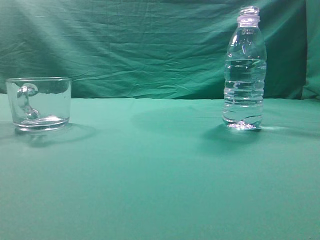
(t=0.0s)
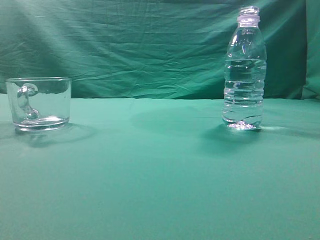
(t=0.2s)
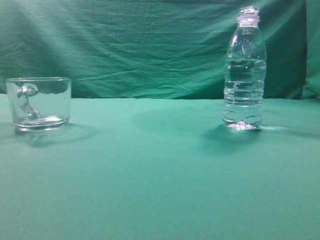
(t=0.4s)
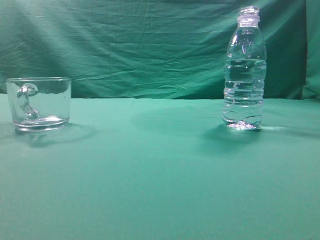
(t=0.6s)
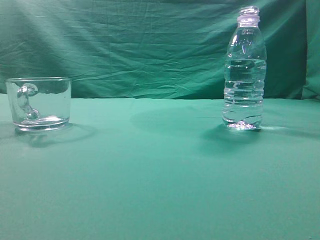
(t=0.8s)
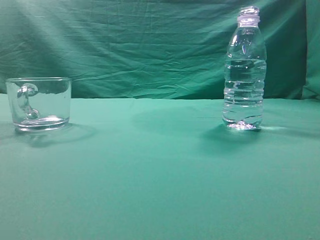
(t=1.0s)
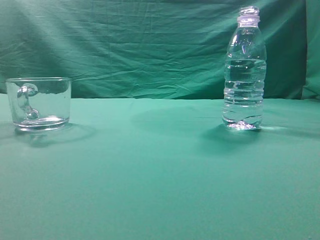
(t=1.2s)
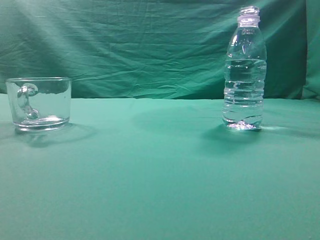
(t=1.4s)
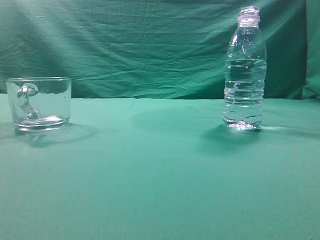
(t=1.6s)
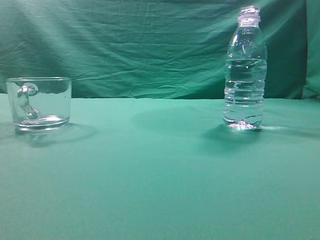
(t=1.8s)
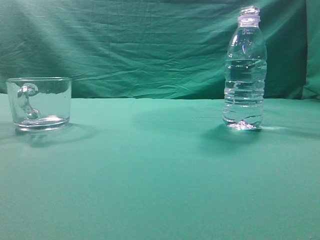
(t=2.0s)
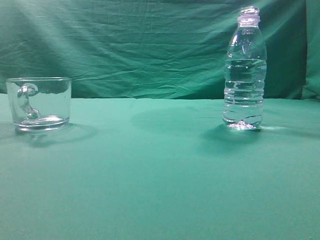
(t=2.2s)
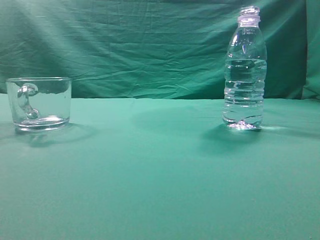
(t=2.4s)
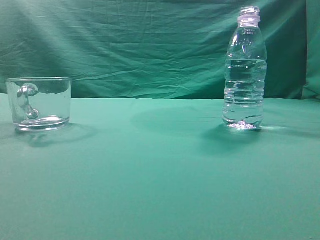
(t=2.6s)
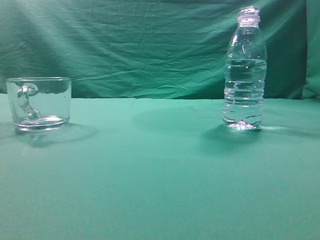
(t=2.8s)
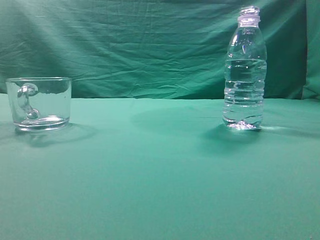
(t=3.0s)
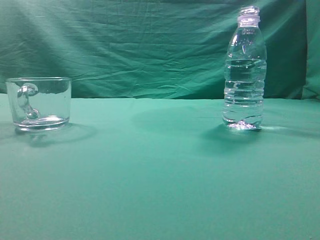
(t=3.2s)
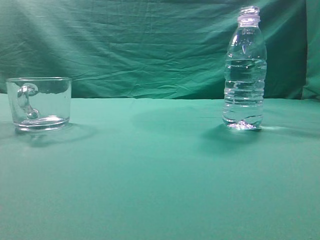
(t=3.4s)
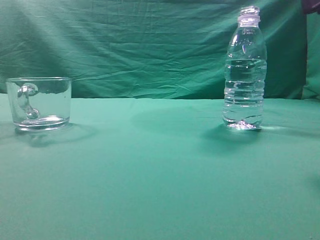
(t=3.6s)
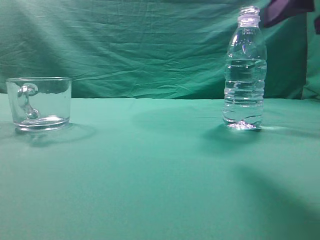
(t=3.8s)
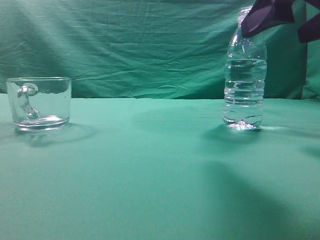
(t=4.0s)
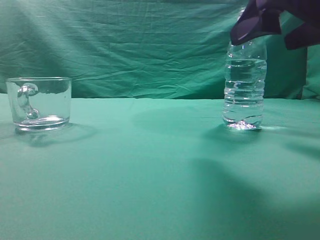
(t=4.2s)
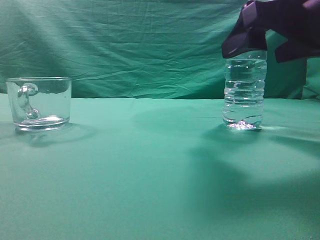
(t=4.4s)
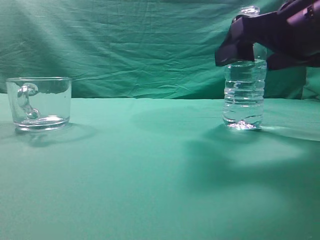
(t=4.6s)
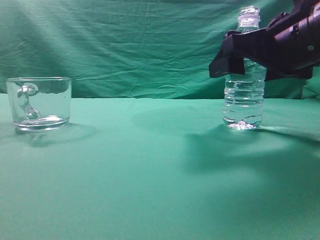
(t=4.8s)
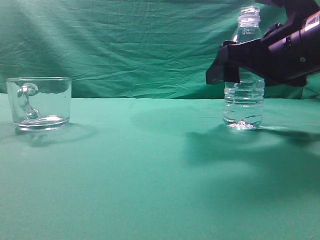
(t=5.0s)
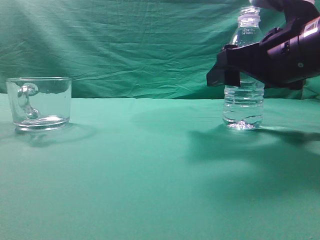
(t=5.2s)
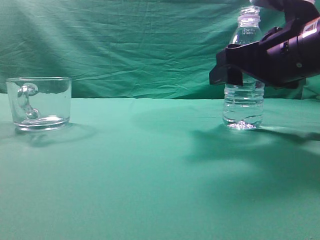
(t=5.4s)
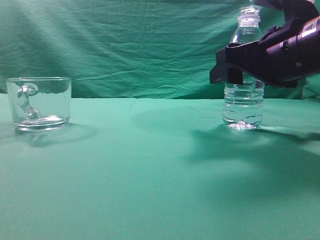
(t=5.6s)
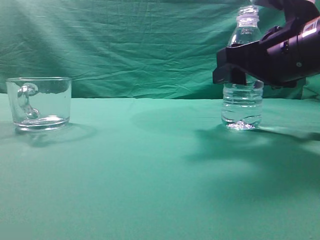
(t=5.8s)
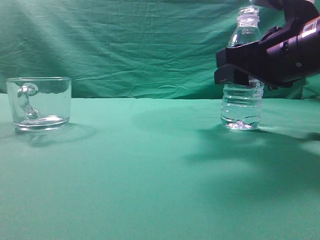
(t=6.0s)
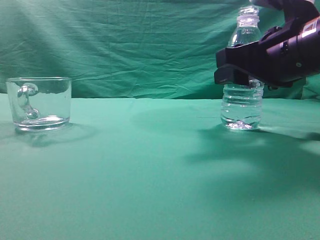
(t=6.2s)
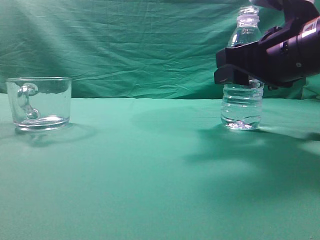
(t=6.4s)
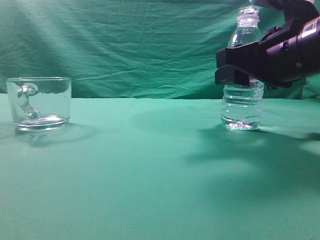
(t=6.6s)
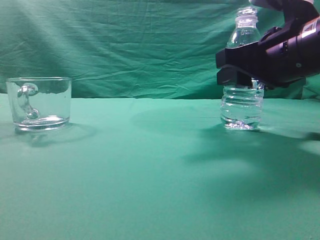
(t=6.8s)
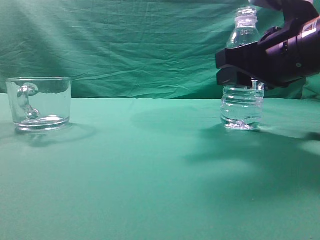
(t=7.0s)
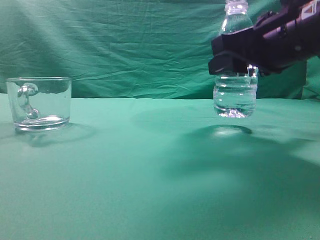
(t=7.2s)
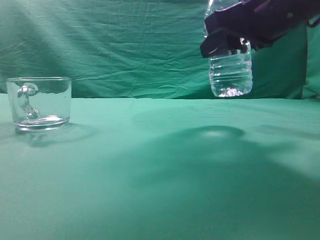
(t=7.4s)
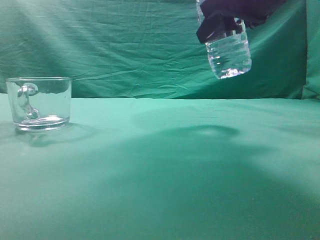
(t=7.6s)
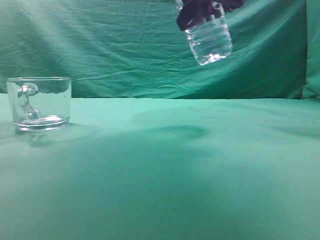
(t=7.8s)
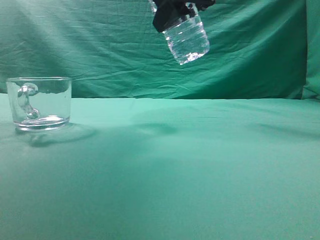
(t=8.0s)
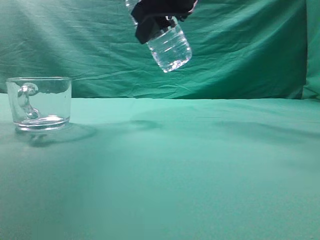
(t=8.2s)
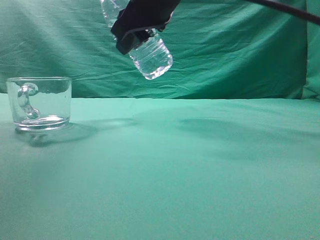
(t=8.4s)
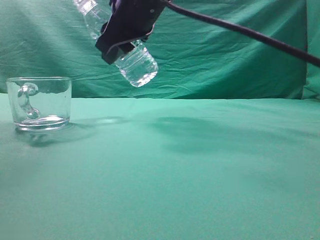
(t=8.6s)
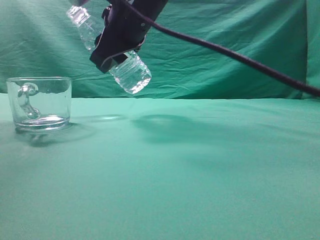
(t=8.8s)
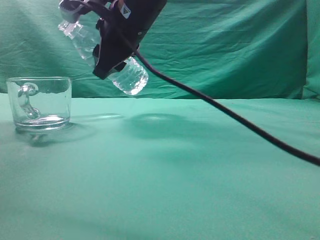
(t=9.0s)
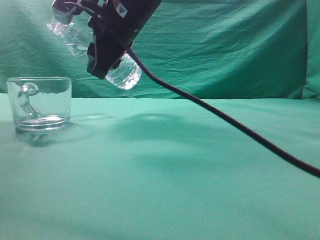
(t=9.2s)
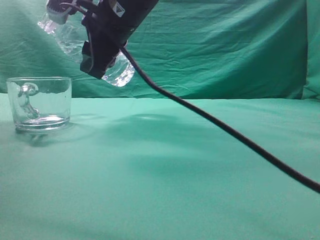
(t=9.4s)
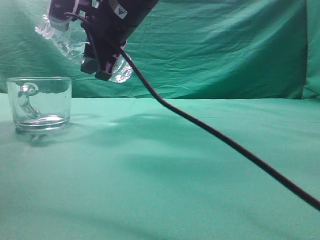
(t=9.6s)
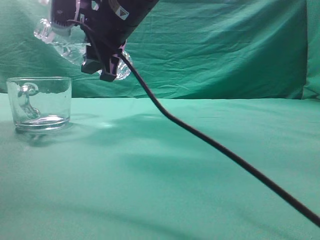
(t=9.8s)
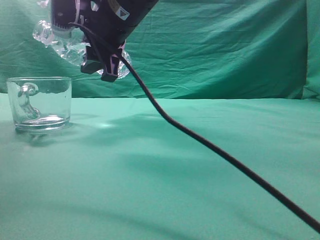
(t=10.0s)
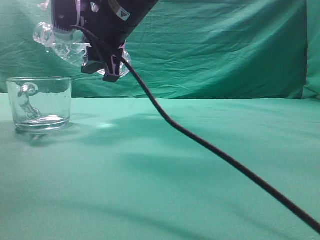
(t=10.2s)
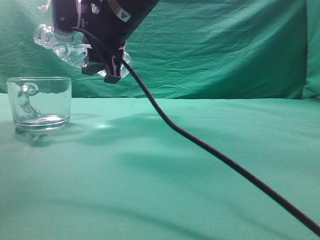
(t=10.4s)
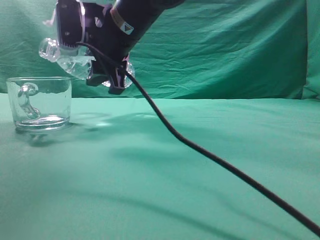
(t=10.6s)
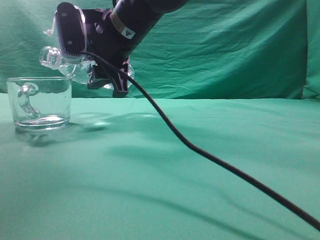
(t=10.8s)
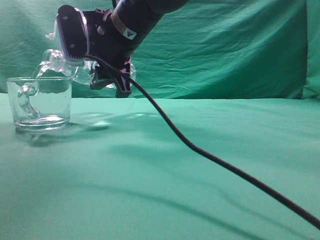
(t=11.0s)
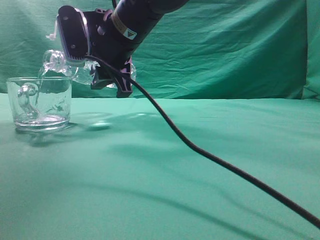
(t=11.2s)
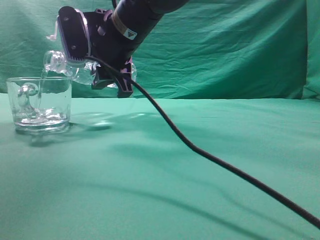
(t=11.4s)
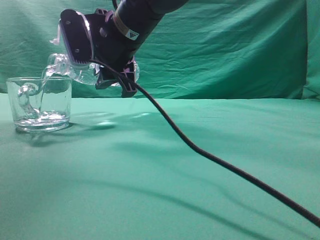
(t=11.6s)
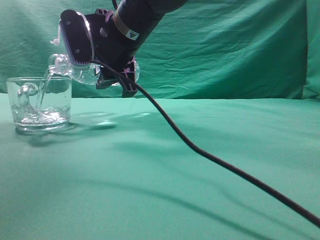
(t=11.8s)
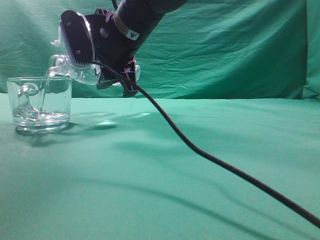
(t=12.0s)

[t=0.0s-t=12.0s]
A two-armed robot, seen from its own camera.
Task of the whole recording: pick up the water bottle and pour the water in it into the glass.
Step, t=0.0s to t=7.4s: Grasp the mineral water bottle.
t=3.0s to t=4.4s: The right gripper shifts some 15 cm forward, to the left and downward, and opens up.
t=4.4s to t=6.0s: The right gripper shifts by roughly 5 cm.
t=6.0s to t=7.6s: The right gripper shifts approximately 10 cm upward.
t=7.6s to t=9.0s: The right gripper heads to the left, covering approximately 20 cm.
t=10.4s to t=12.0s: The grippers move only a little.

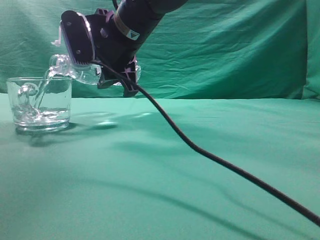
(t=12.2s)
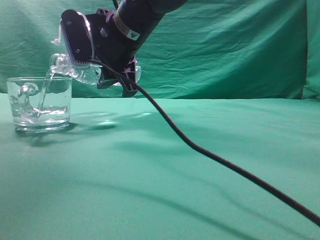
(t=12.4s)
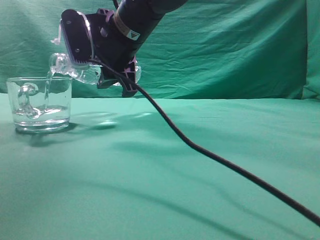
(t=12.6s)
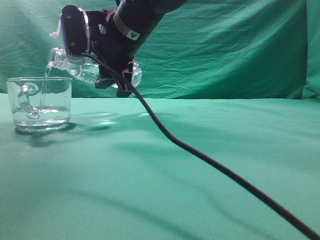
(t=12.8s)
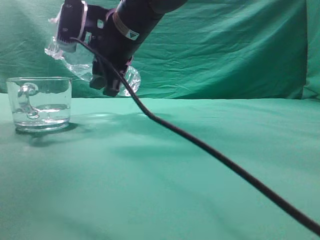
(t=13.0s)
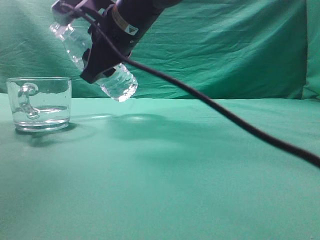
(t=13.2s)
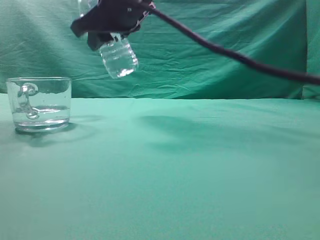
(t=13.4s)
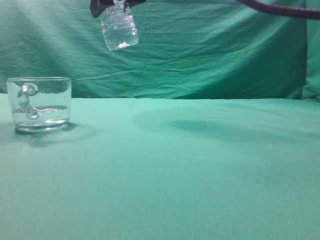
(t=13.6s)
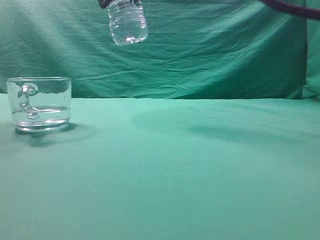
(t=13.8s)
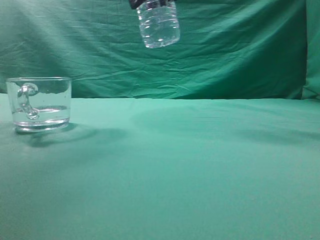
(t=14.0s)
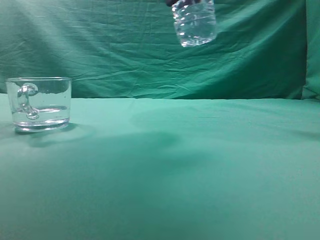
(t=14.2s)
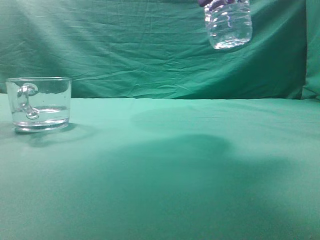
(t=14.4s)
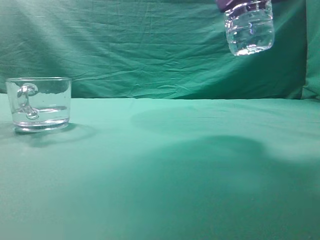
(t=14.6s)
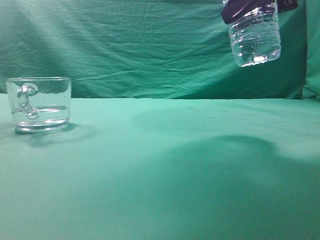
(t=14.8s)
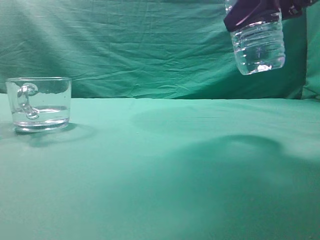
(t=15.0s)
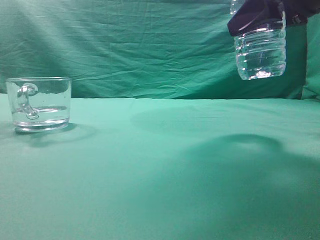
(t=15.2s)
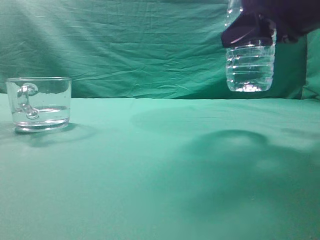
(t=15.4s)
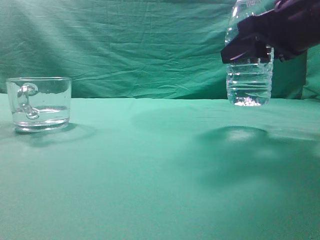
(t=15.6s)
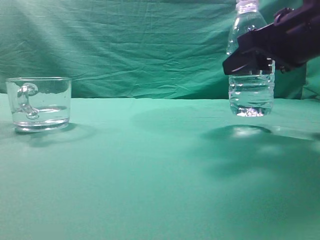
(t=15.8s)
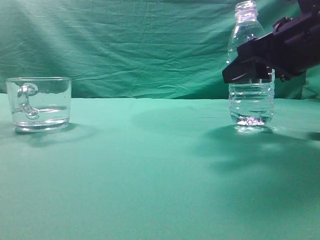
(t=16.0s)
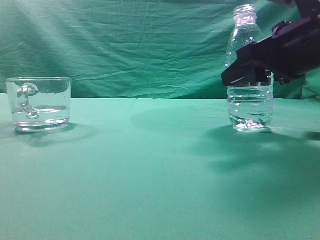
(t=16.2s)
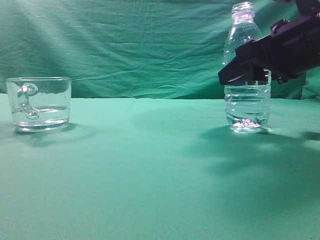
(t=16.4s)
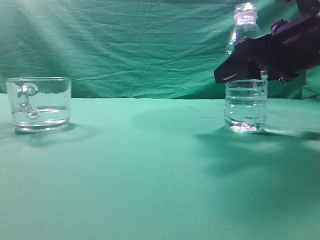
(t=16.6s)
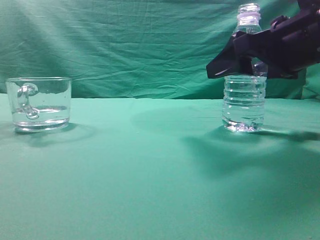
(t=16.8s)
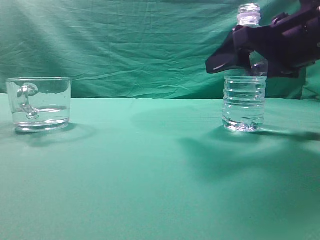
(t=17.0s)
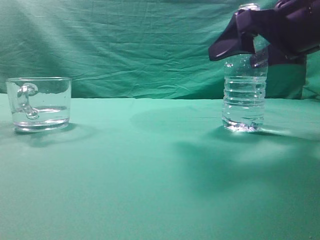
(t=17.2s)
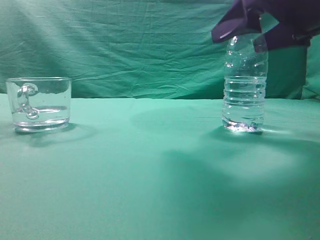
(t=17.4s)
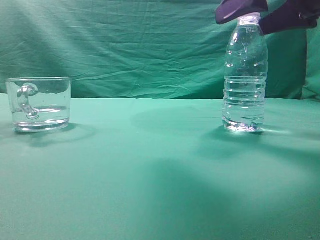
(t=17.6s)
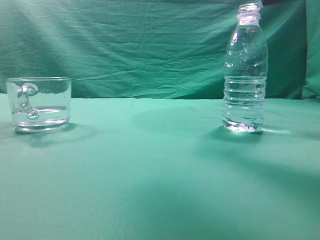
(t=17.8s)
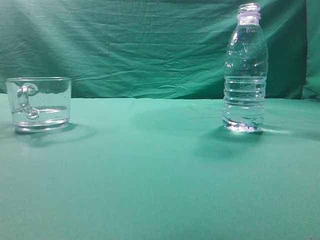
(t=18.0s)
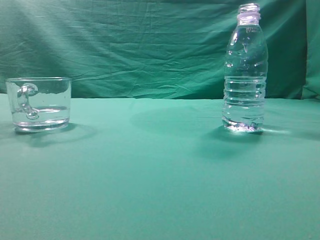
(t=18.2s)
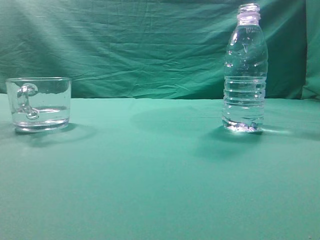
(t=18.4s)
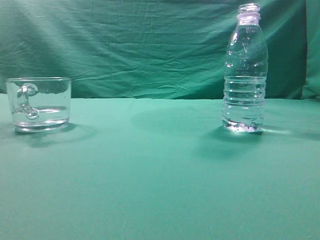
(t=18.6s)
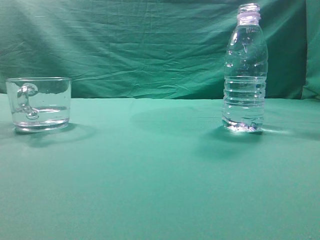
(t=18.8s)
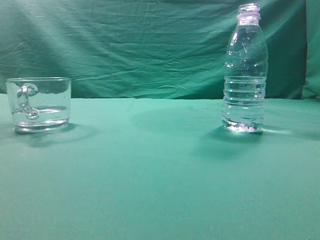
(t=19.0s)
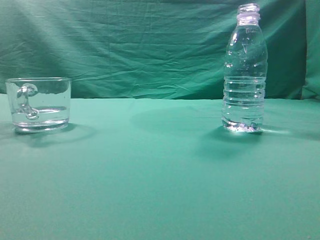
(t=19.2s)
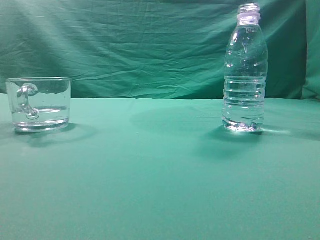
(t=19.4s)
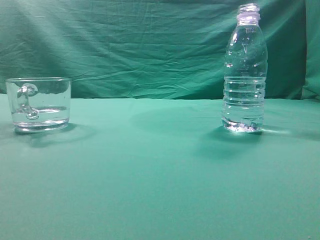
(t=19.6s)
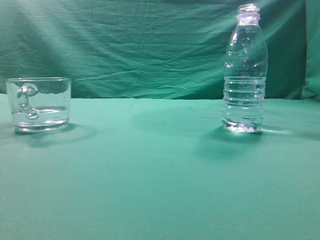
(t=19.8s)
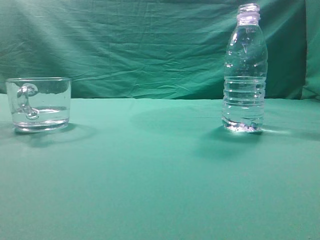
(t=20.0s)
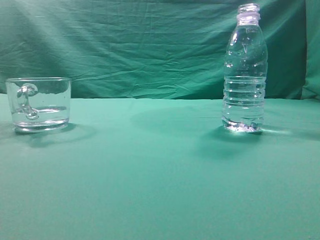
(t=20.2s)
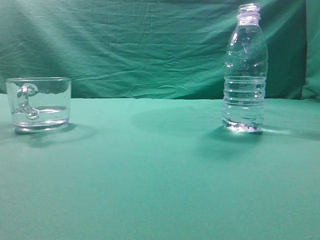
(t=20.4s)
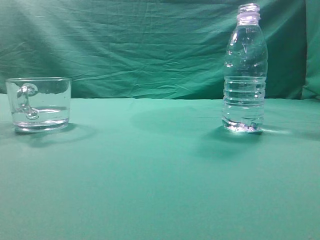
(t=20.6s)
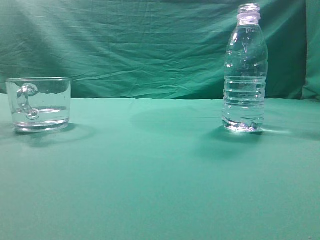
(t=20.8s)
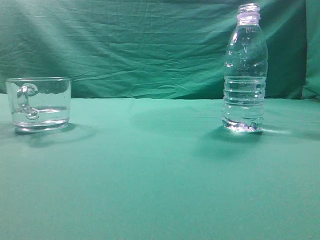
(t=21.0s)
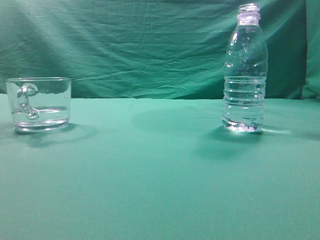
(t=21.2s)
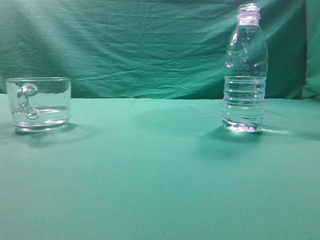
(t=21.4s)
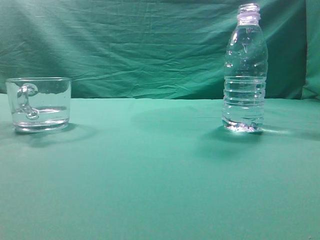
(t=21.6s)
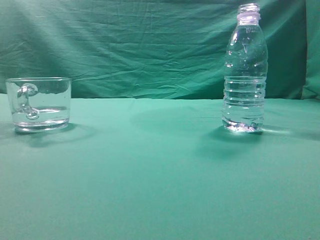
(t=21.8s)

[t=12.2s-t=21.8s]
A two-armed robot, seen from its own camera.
Task of the whole recording: pick up the water bottle and pour the water in it into the glass.
t=12.2s to t=13.8s: The right gripper moves upward and to the right, roughly 10 cm.
t=13.8s to t=15.4s: The right gripper heads to the right and downward, covering approximately 20 cm.
t=15.4s to t=17.0s: The right gripper opens up.
t=17.0s to t=18.6s: The right gripper moves upward and backward, some 30 cm, and closes its fingers.
